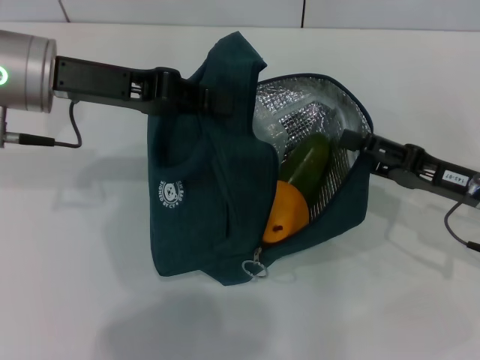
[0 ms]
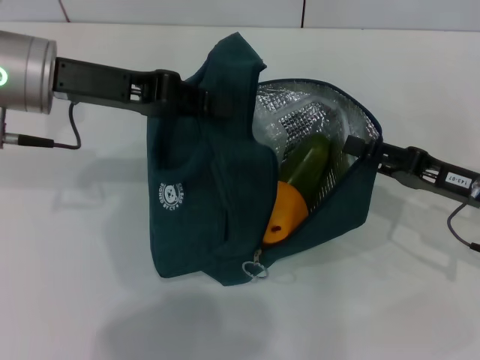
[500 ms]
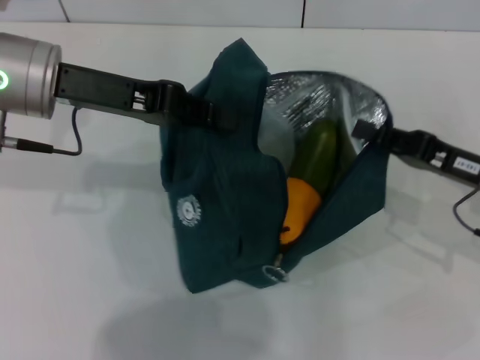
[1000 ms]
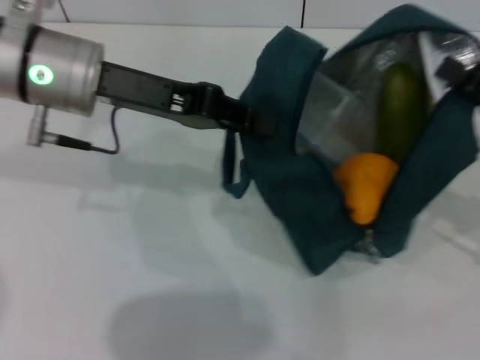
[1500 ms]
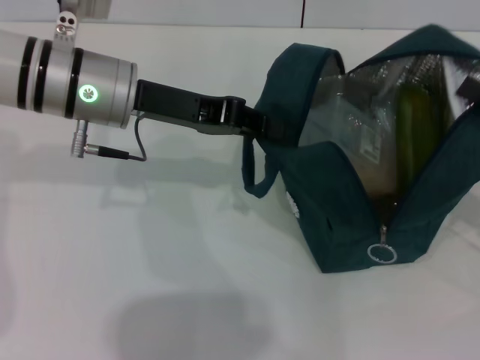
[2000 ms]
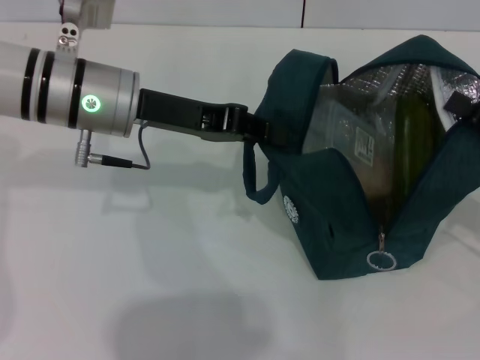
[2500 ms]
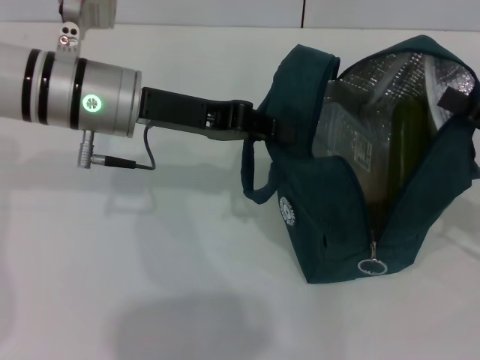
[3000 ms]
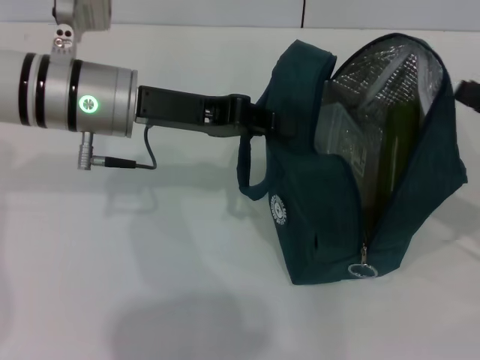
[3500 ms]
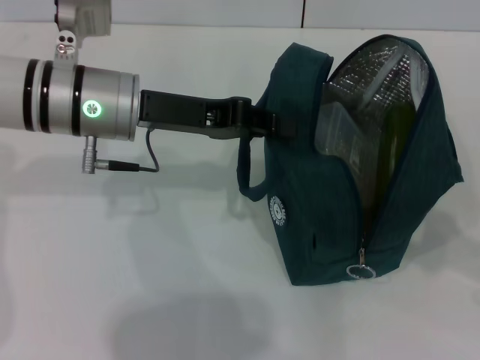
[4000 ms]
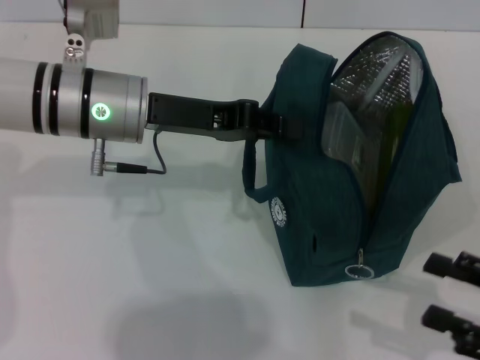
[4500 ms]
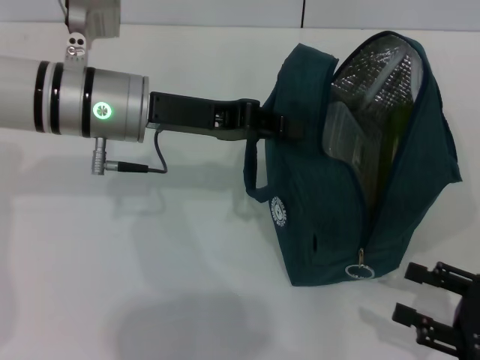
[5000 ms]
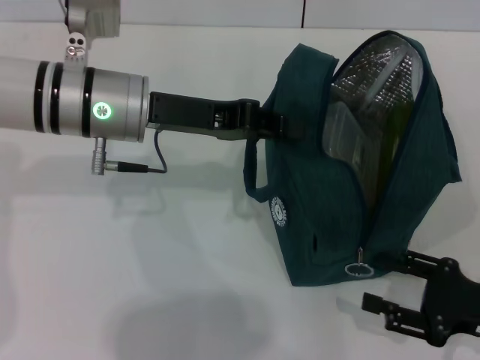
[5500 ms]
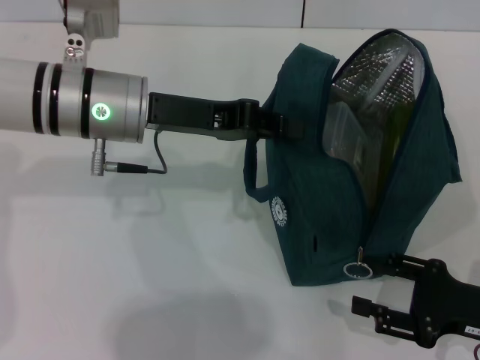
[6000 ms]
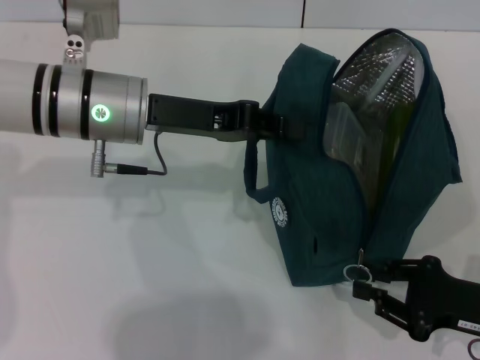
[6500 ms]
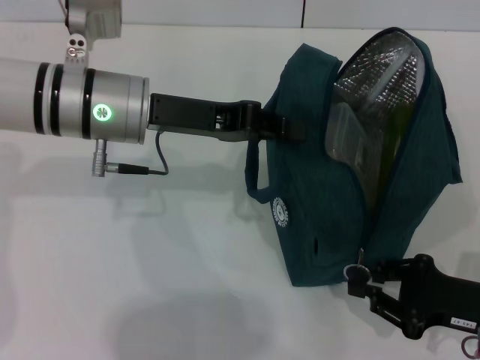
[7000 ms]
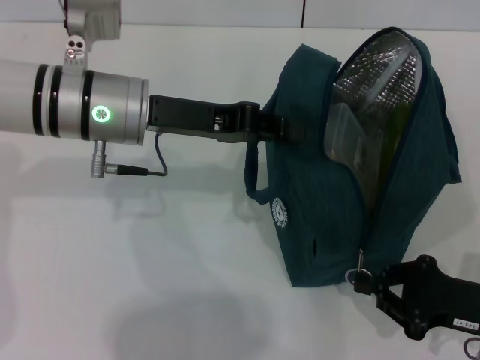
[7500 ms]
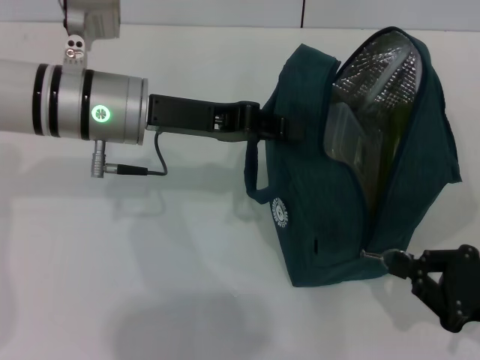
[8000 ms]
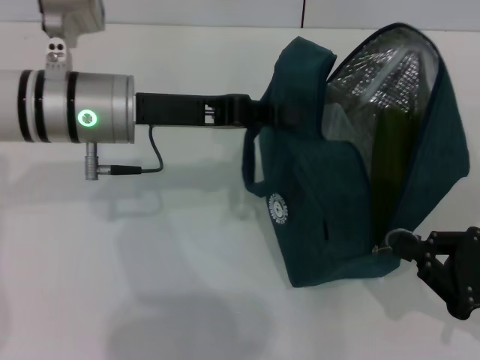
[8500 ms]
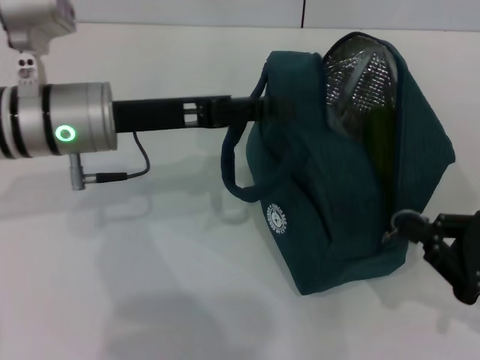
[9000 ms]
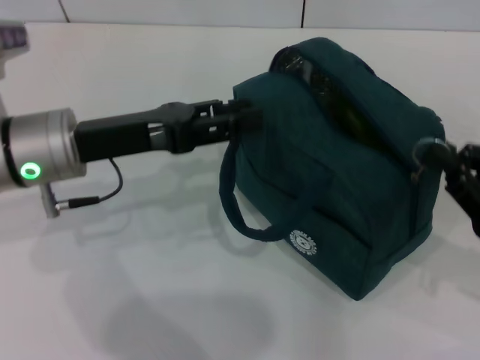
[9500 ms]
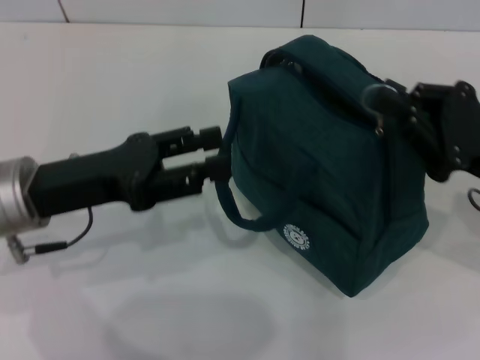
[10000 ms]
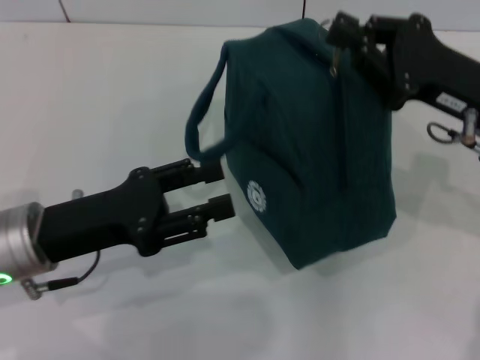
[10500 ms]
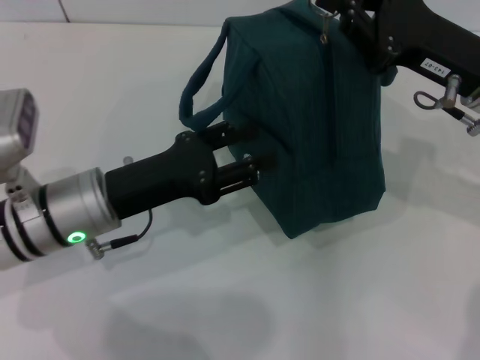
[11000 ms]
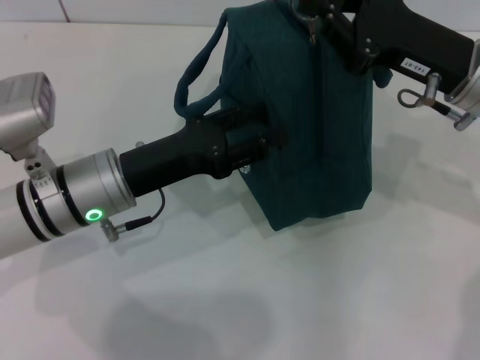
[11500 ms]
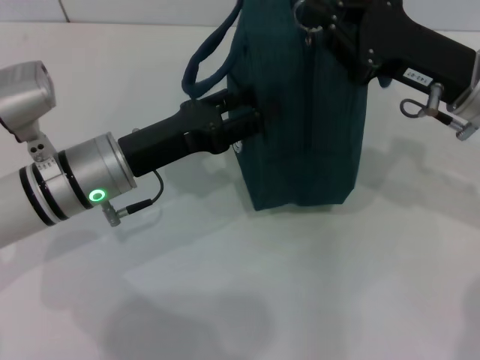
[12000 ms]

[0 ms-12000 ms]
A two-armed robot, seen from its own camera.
Step, 0 ms to 3000 ms: Hold the lunch bag with your right hand.
Step, 3500 ms to 9500 ms: Hold the lunch bag with your left hand.
0 ms to 2000 ms: Both grippers move to the right, about 5 cm. The right gripper closes.
2000 ms to 4000 ms: The right gripper travels backward by some 5 cm, and opens.
4000 ms to 6000 ms: The right gripper travels downward and to the left by some 10 cm.
6000 ms to 8000 ms: The right gripper closes up.
8000 ms to 10000 ms: The left gripper goes about 10 cm backward and to the left, and opens. The right gripper is displaced forward and upward by about 10 cm.
10000 ms to 12000 ms: The left gripper goes some 5 cm to the right; the right gripper travels forward and to the left by approximately 10 cm.

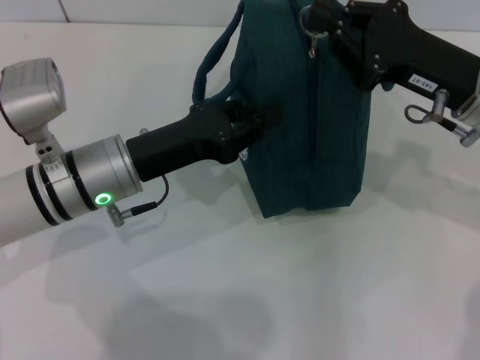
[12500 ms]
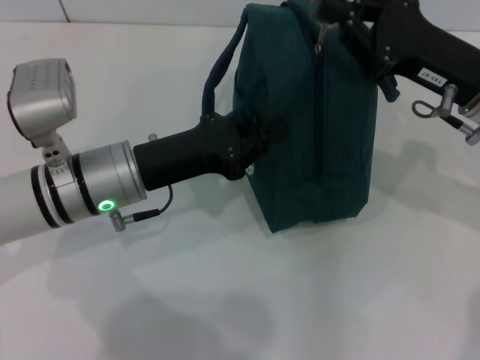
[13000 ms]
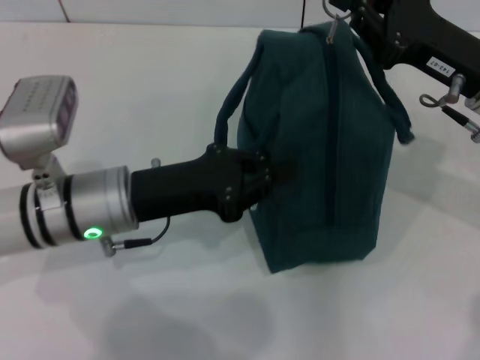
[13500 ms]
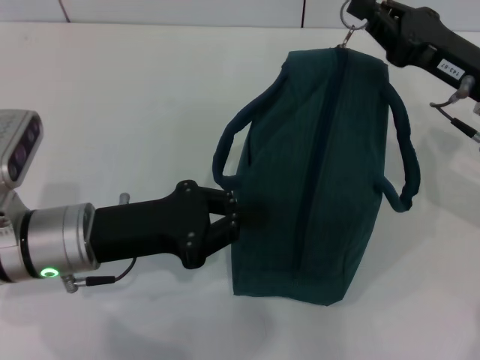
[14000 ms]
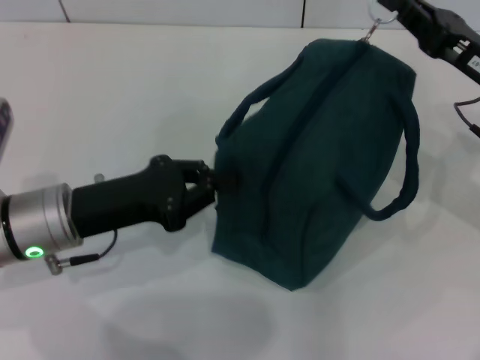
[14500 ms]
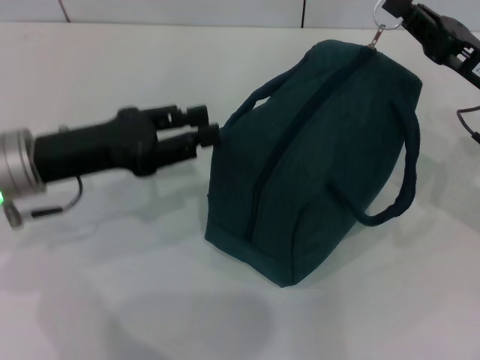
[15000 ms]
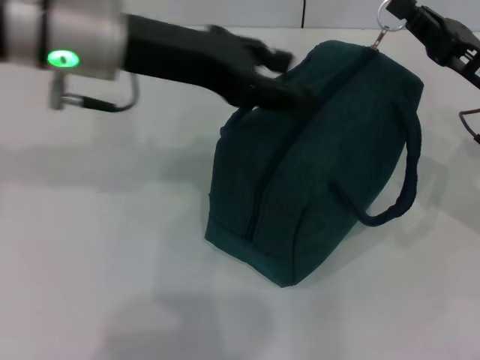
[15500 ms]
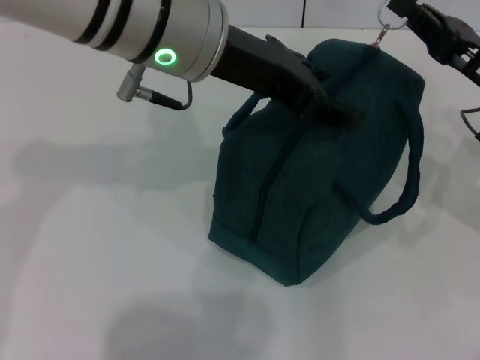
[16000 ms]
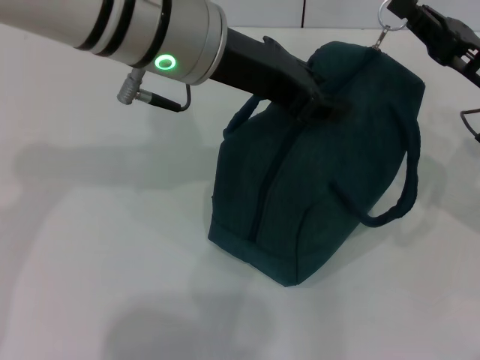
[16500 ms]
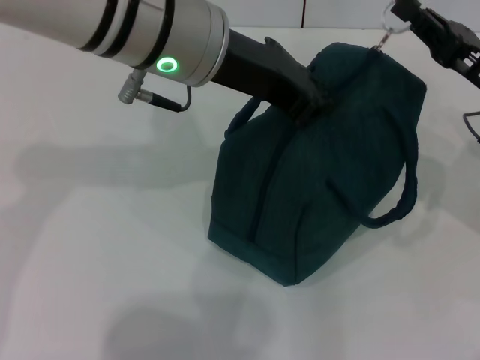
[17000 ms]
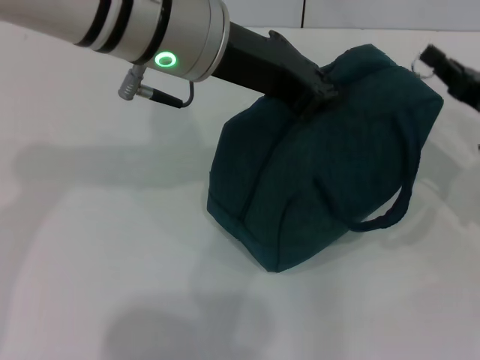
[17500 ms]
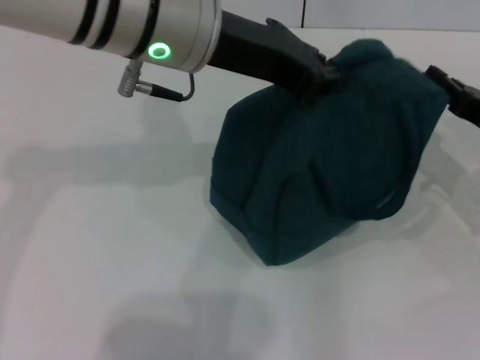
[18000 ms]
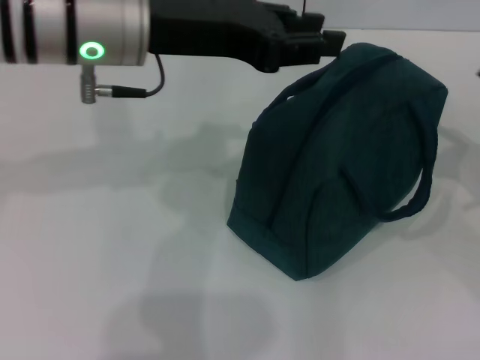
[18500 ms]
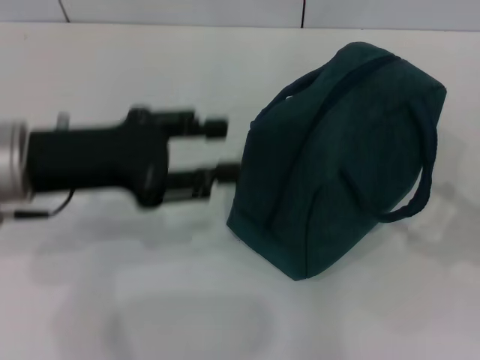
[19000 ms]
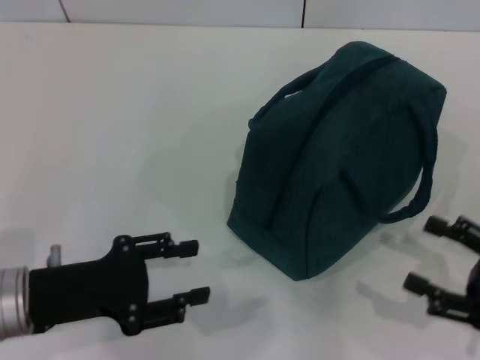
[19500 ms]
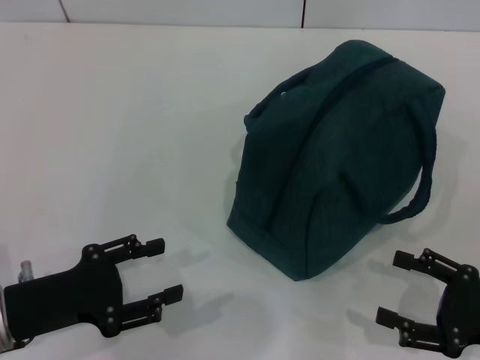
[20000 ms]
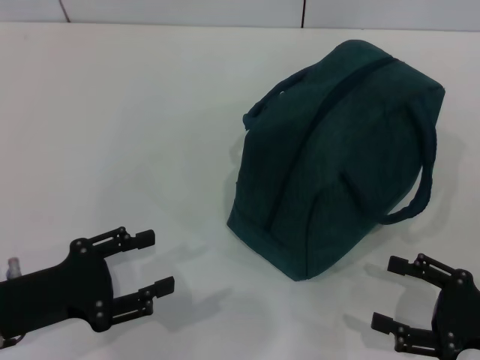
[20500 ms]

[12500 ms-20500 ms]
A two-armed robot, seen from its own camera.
Step, 12500 ms to 18000 ms: Zip up the lunch bag with your right hand.
12500 ms to 14500 ms: The left gripper changes place by approximately 5 cm, and closes its fingers.
14500 ms to 16500 ms: The left gripper moves upward and to the right, about 20 cm, and opens its fingers.
16500 ms to 18500 ms: The right gripper travels to the right by roughly 10 cm. Meanwhile the left gripper is displaced to the left by some 5 cm, and closes.
18500 ms to 20500 ms: The left gripper goes some 30 cm downward, backward and to the left, and opens its fingers; the right gripper moves backward and downward, about 10 cm, and opens its fingers.

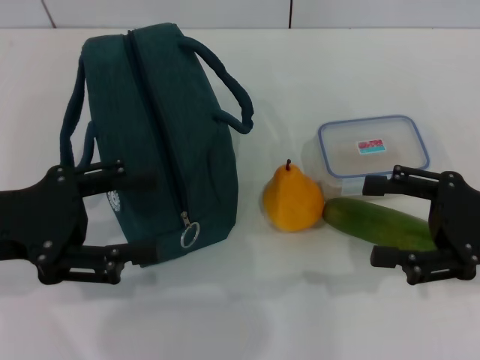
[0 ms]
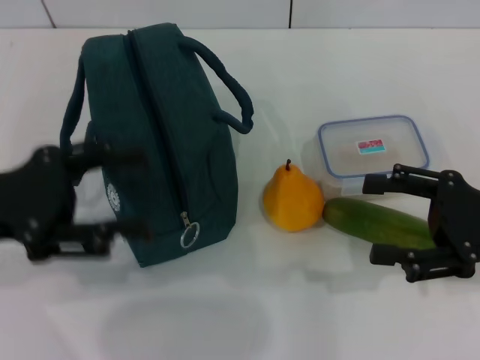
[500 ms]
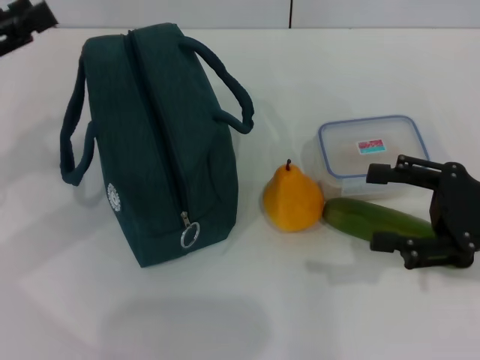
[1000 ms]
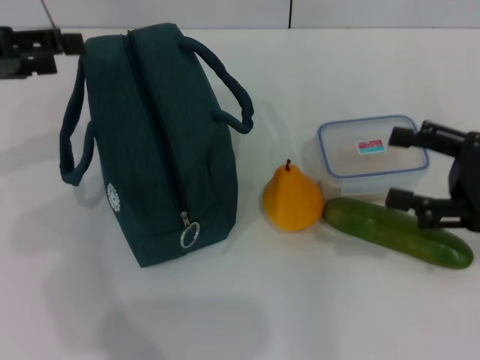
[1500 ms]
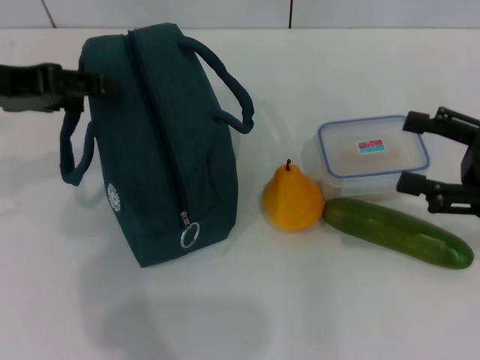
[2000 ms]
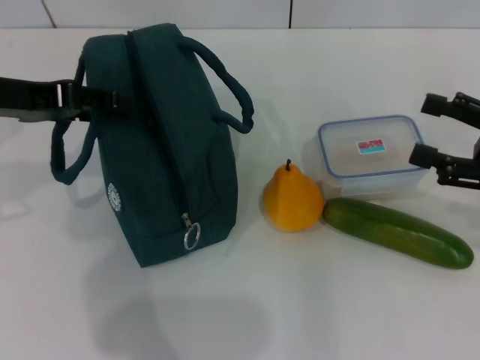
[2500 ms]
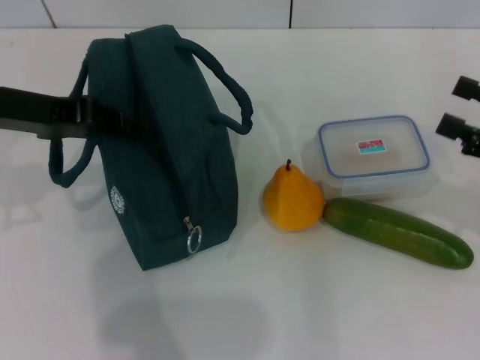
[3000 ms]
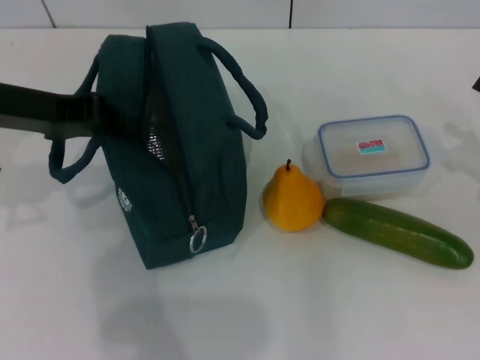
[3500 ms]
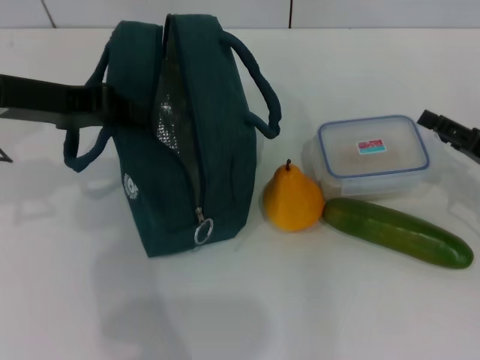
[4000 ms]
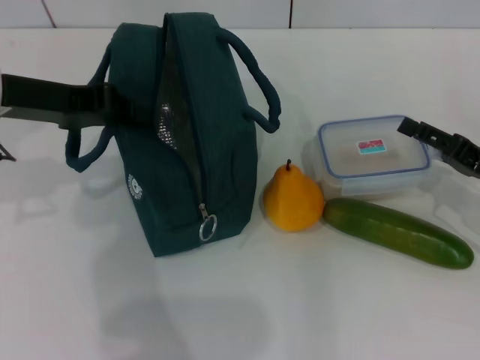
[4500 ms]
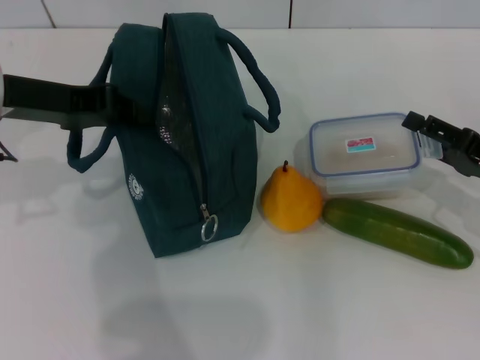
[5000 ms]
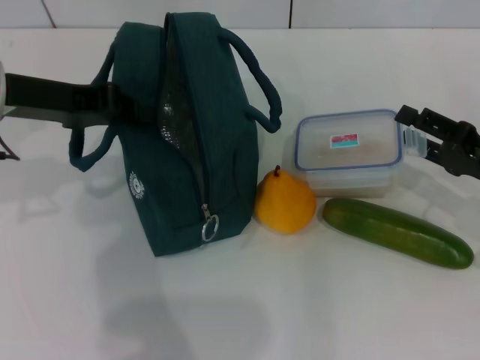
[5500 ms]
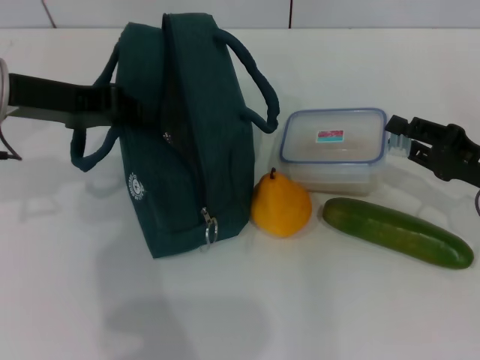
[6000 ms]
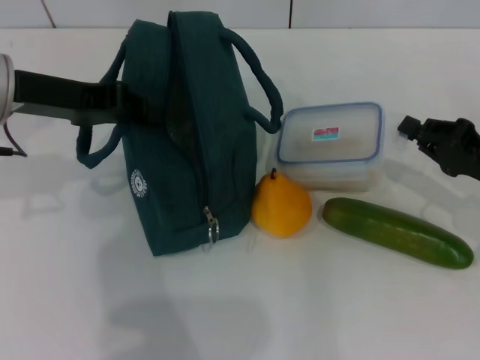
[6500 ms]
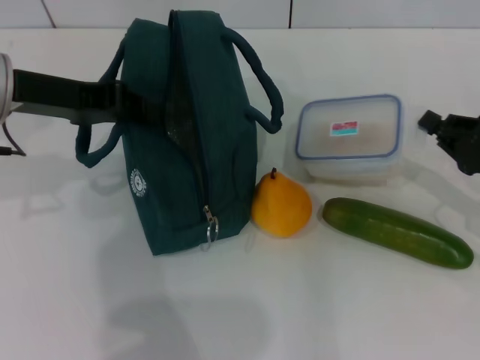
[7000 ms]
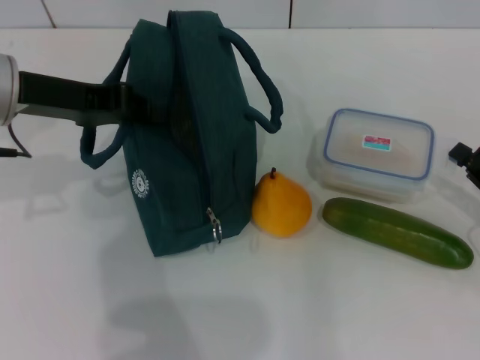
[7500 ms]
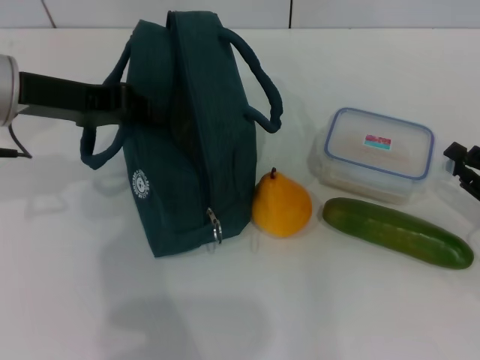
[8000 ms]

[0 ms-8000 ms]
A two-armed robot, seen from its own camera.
Step, 0 ms to 2500 ms: Hold the lunch bag with your left hand.
Step, 3000 ms to 7000 ms: Pick up the lunch box with your right hand.
0 ms to 2000 ms: The left gripper travels forward and upward by roughly 10 cm.
2000 ms to 4000 ms: The right gripper shifts approximately 5 cm downward; the left gripper closes its fingers.
6000 ms to 8000 ms: The right gripper shifts by about 5 cm, and closes up.
